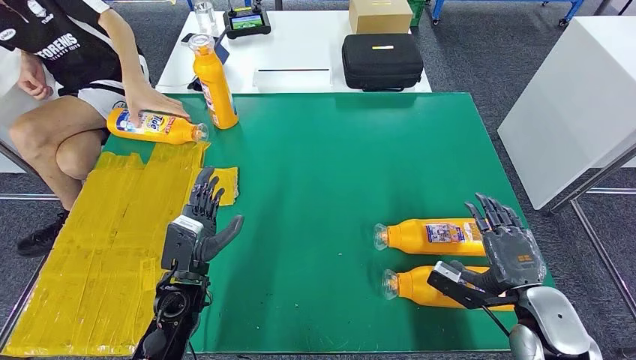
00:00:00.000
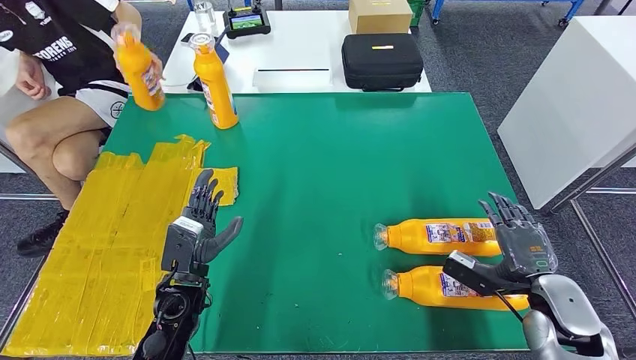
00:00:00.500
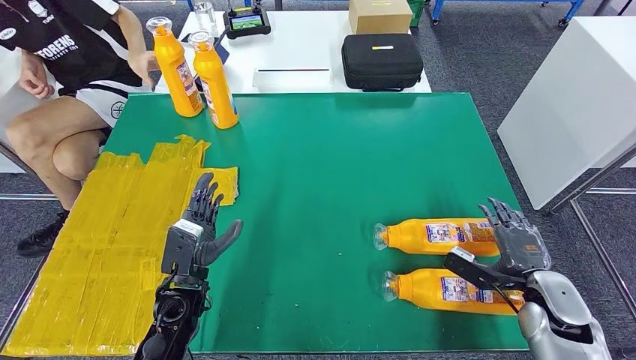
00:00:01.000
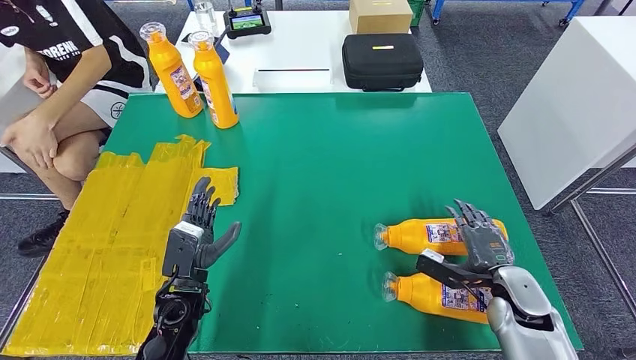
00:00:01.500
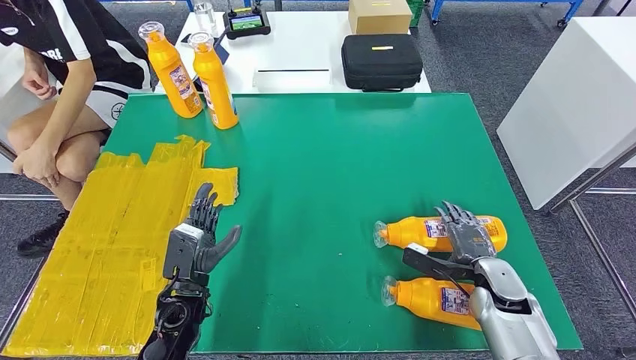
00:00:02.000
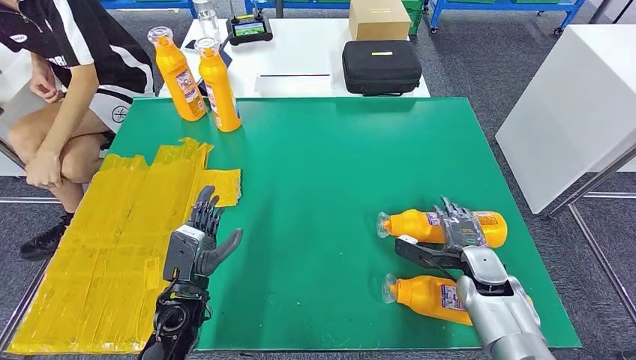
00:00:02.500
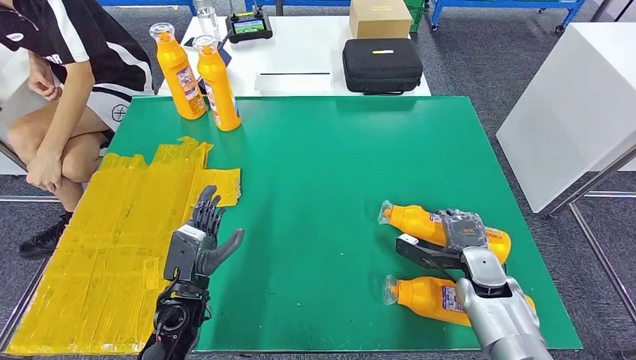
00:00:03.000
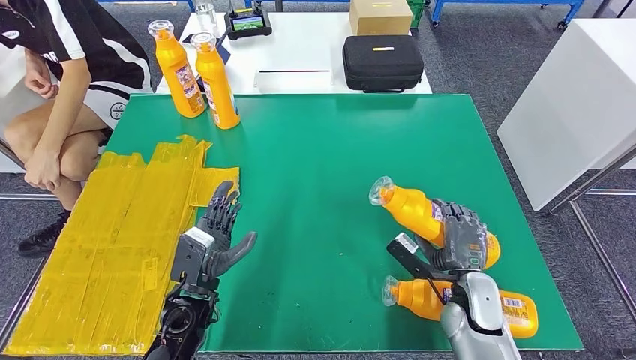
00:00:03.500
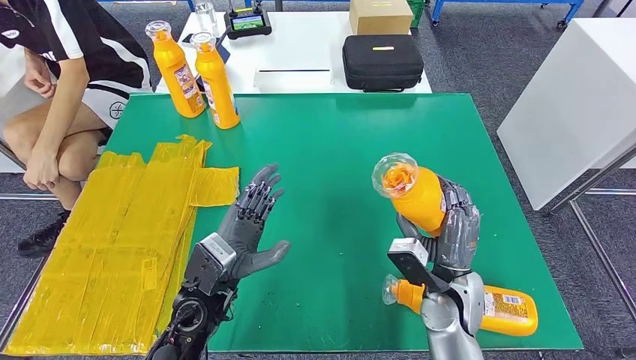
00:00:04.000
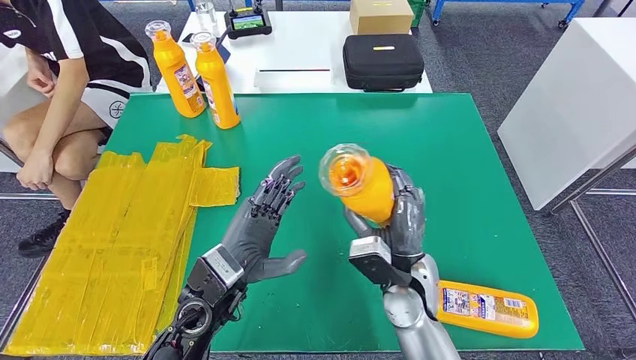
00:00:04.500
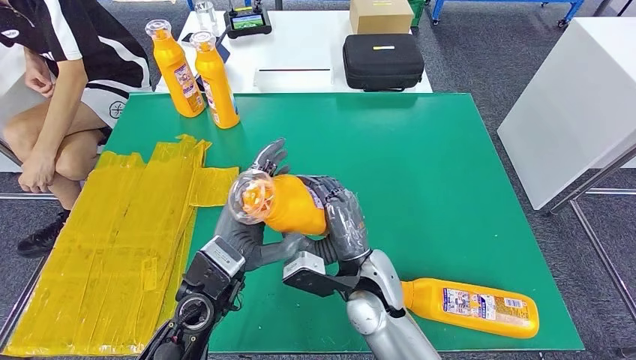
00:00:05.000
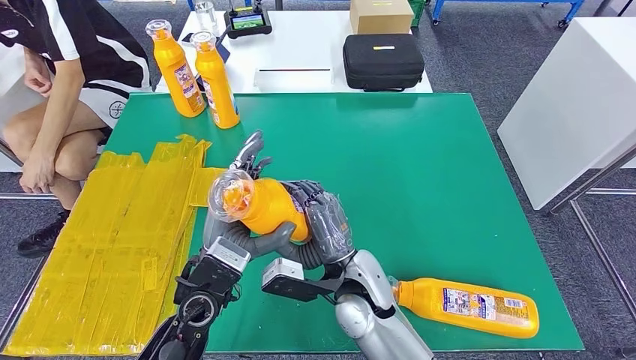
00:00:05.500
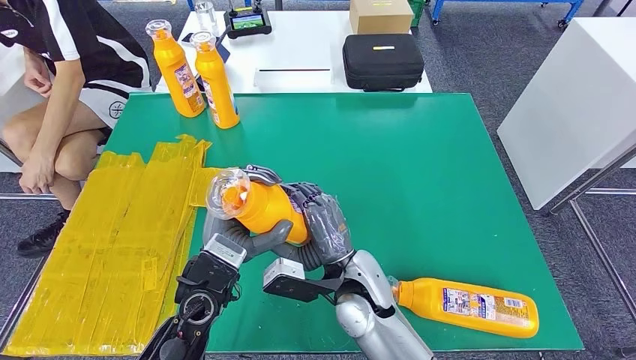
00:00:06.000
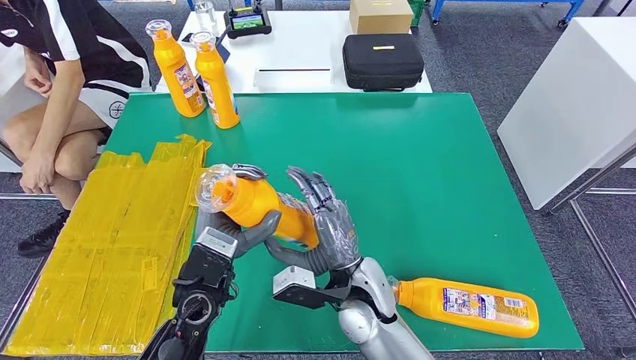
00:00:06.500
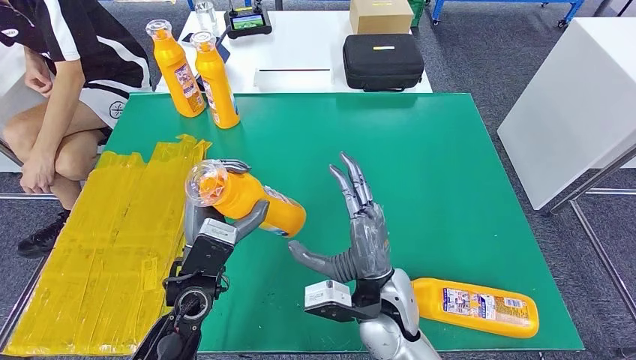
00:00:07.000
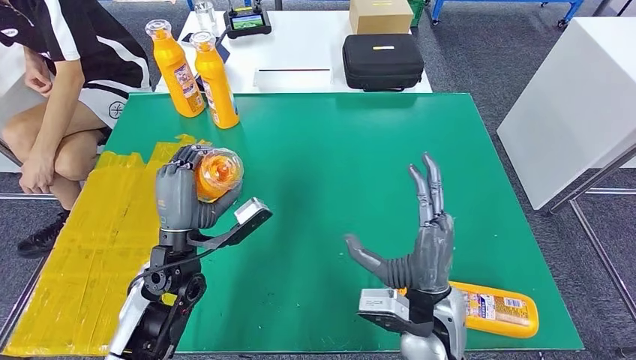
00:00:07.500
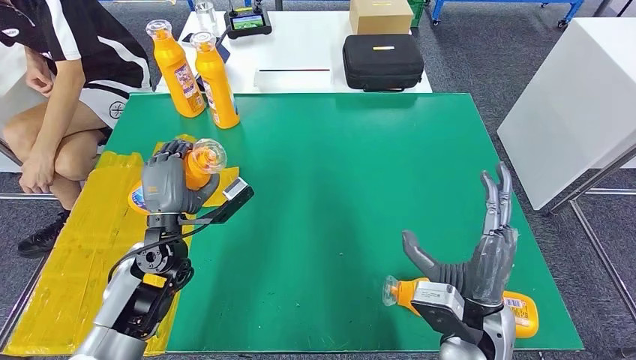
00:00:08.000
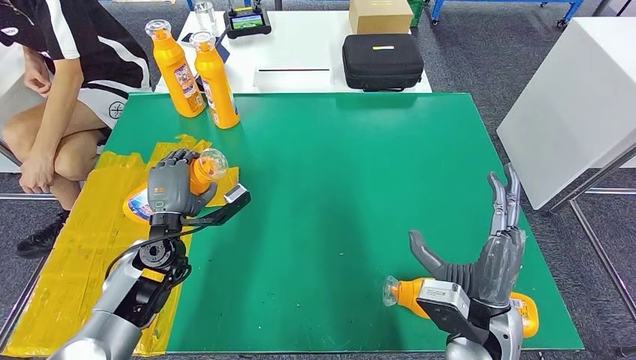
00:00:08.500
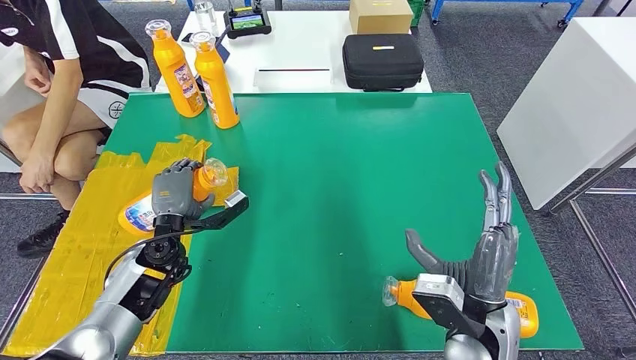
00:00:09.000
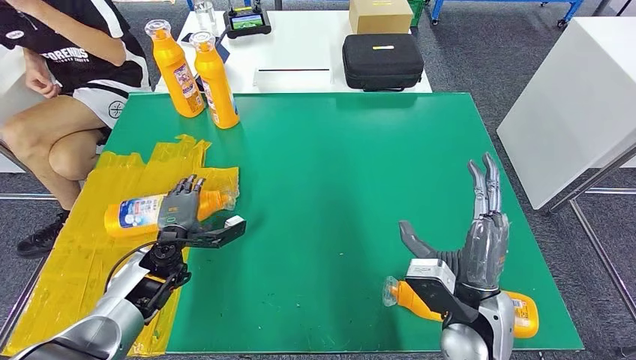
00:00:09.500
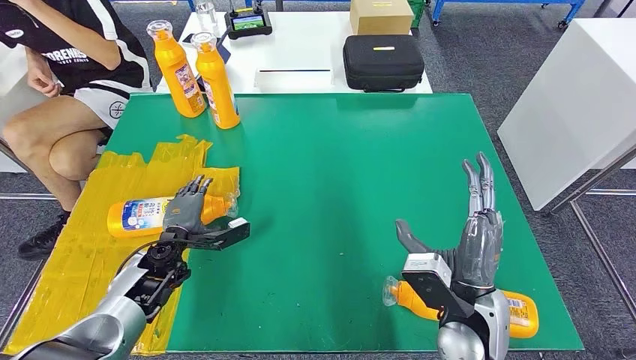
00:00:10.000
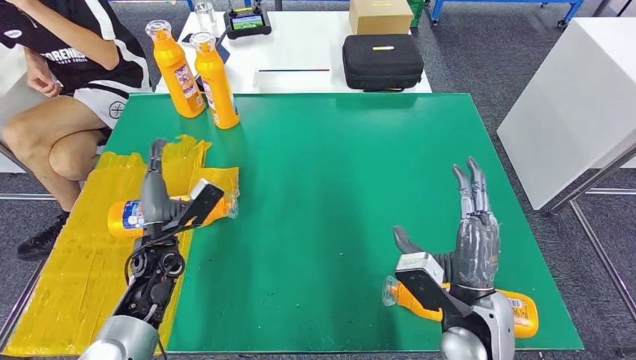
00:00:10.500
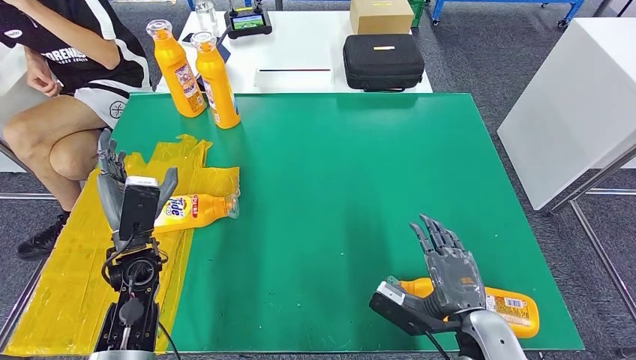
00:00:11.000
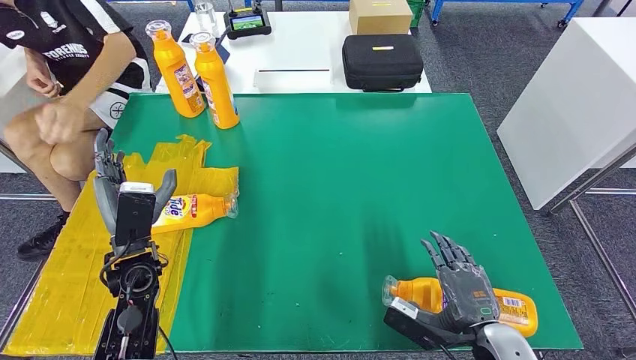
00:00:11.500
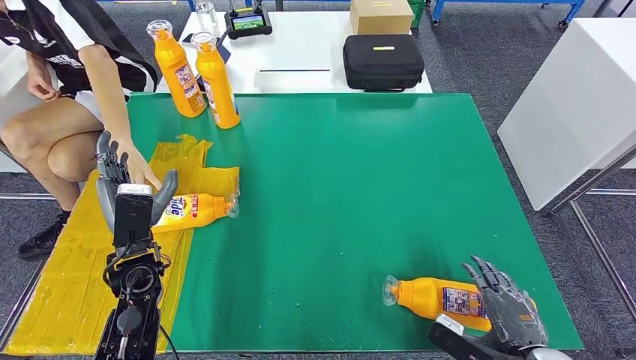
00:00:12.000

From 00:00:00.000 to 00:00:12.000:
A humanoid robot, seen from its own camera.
Step, from 00:00:00.000 to 00:00:05.000: Pick up the fast-moving consumer goods bottle from the table.
Step, from 00:00:06.000 to 00:00:11.000: Flip the fast-moving consumer goods bottle to the front side.
From 00:00:00.000 to 00:00:02.000: The right hand goes some 10 cm downward and forward.
From 00:00:02.000 to 00:00:04.000: The left hand heads upward and to the right, covering about 10 cm, while the right hand heads to the left and upward, covering approximately 15 cm.
From 00:00:04.000 to 00:00:06.000: The right hand heads to the left, covering roughly 15 cm.
From 00:00:06.000 to 00:00:08.000: The left hand heads to the left and forward, covering roughly 10 cm. Meanwhile the right hand heads to the right and backward, covering about 15 cm.
From 00:00:08.000 to 00:00:10.000: The left hand moves downward, approximately 10 cm.
From 00:00:10.000 to 00:00:12.000: The left hand goes some 10 cm upward and backward. Meanwhile the right hand goes approximately 15 cm to the right, backward and downward.

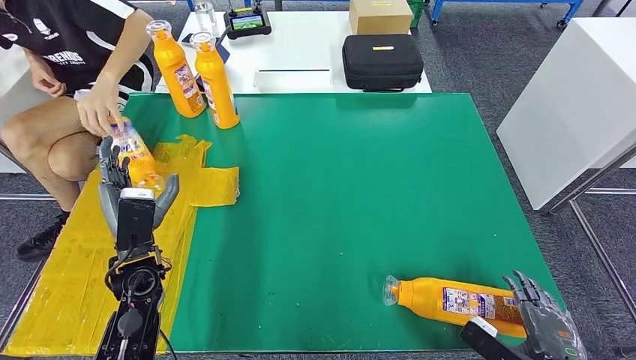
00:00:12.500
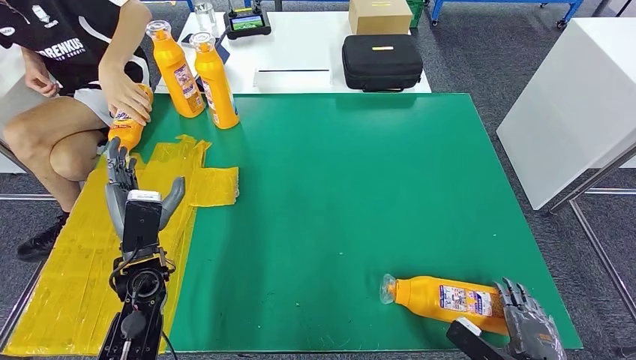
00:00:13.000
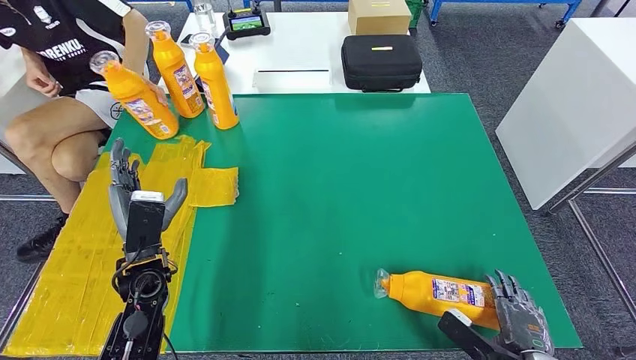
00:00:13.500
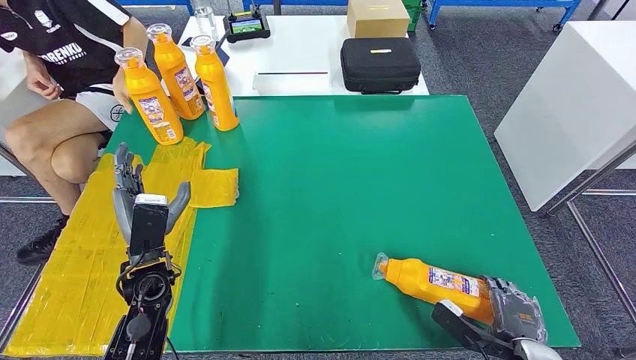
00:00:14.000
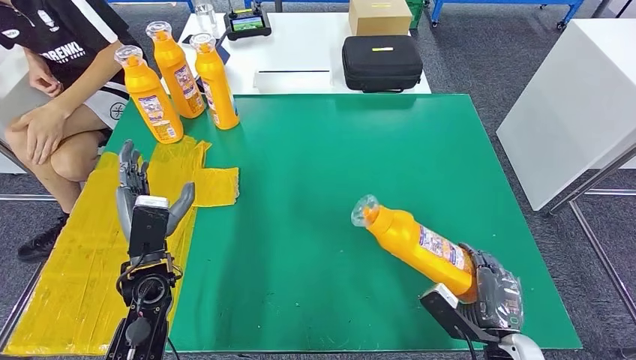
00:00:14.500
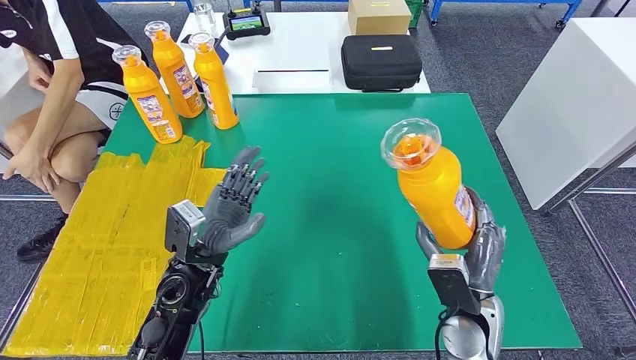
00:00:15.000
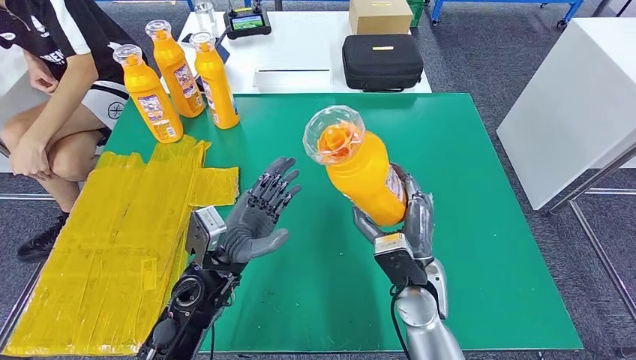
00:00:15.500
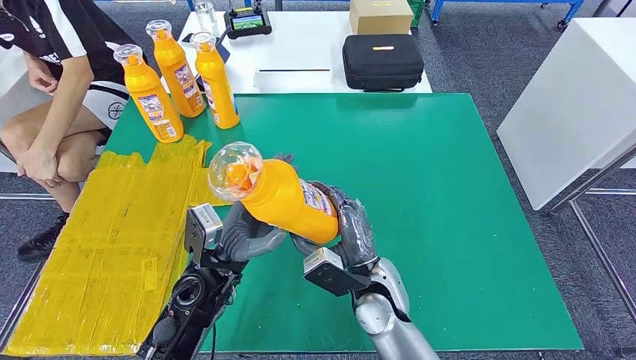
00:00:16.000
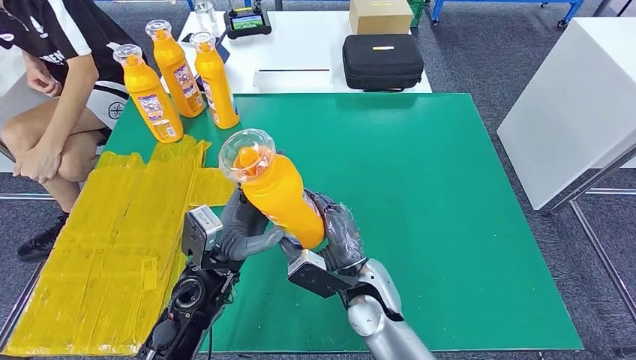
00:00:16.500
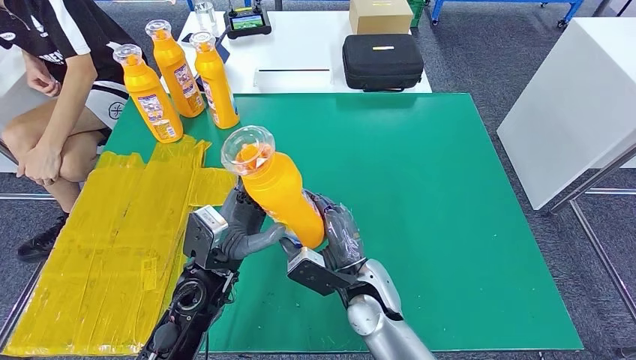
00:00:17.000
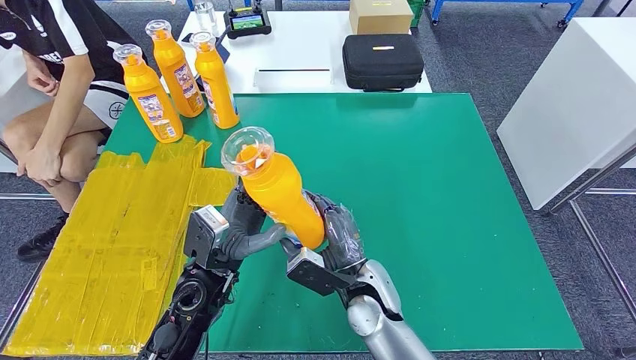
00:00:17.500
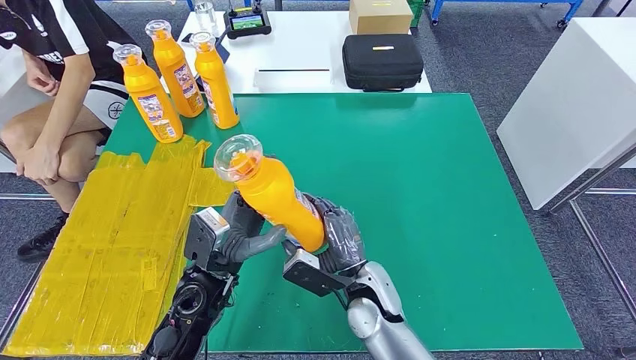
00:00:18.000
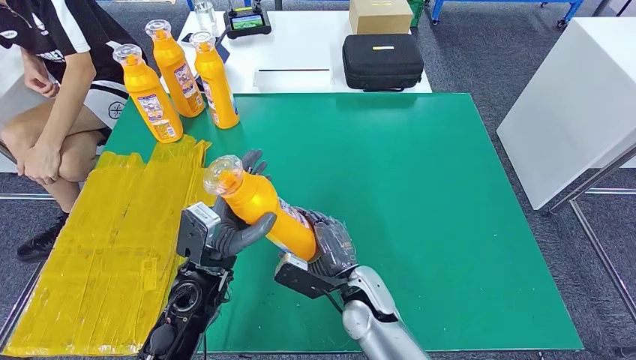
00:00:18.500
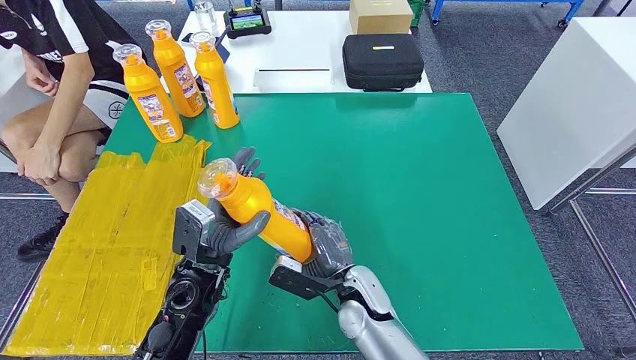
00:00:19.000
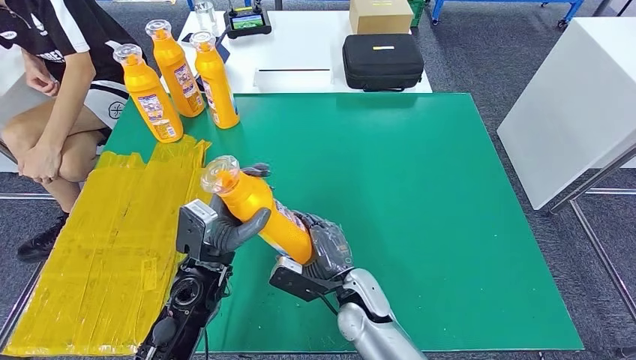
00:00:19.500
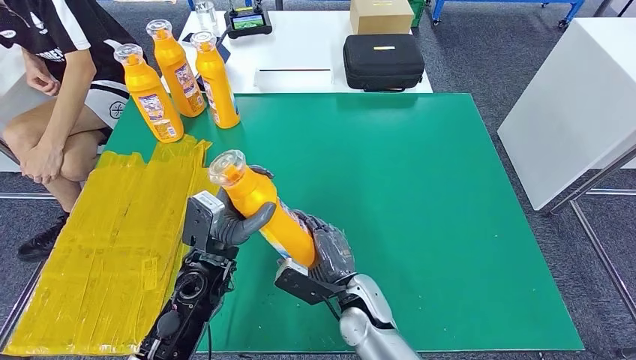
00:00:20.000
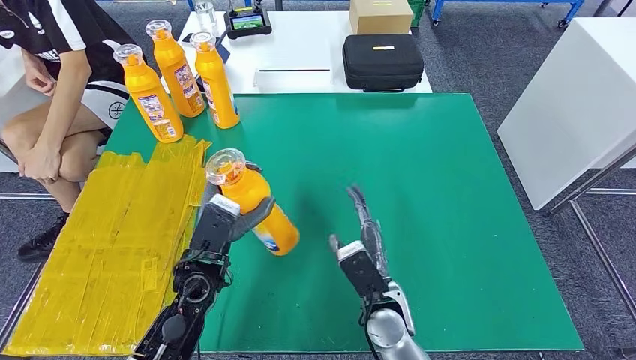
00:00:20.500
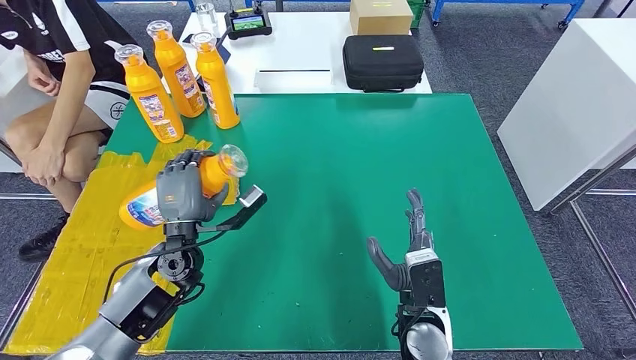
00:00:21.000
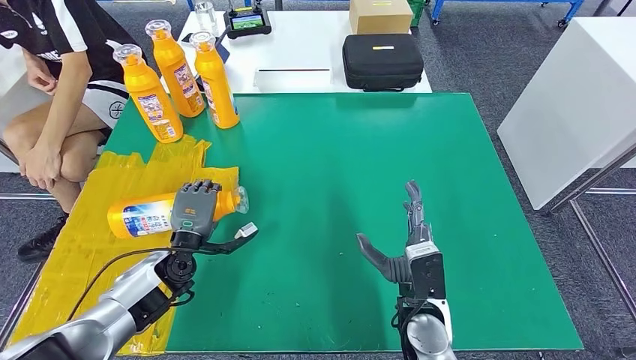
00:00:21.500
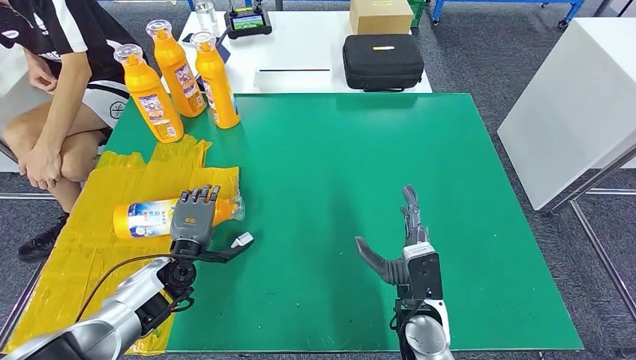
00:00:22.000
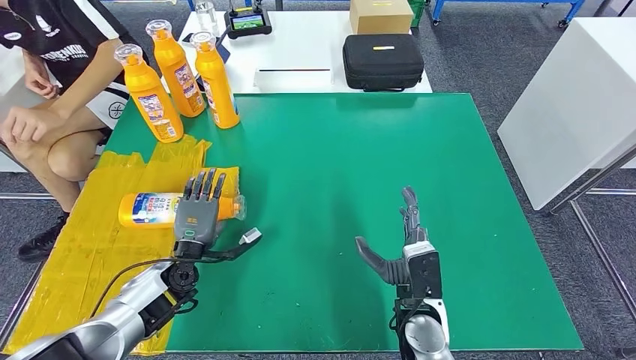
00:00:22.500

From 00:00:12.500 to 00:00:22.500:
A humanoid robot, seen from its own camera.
Step, from 00:00:12.500 to 00:00:18.000: Pick up the fast-moving consumer goods bottle from the table.
Step, from 00:00:18.500 to 00:00:22.500: Flip the fast-moving consumer goods bottle to the front side.
From 00:00:12.500 to 00:00:14.500: The right hand is displaced to the left by roughly 10 cm.
From 00:00:16.500 to 00:00:18.500: The hands stay close to where they were, moving slightly.
From 00:00:20.500 to 00:00:22.500: The left hand heads downward and to the left, covering some 10 cm, while the right hand heads to the right, covering approximately 5 cm.
